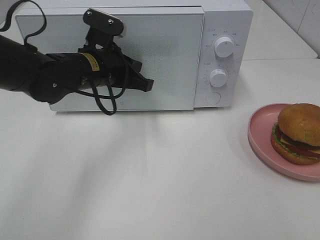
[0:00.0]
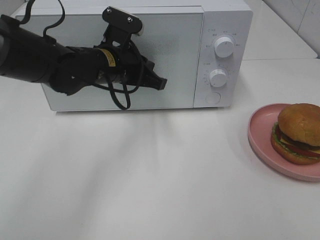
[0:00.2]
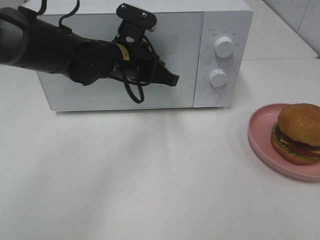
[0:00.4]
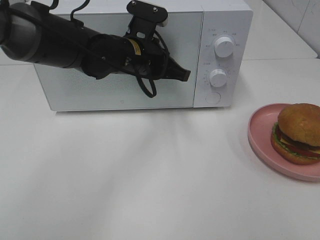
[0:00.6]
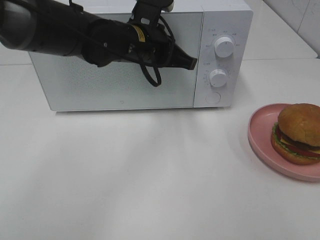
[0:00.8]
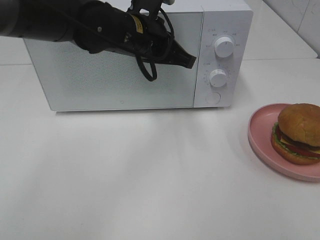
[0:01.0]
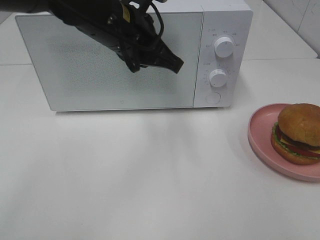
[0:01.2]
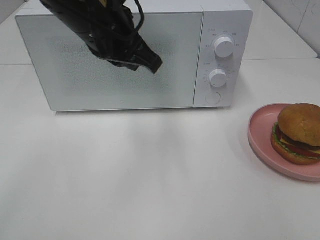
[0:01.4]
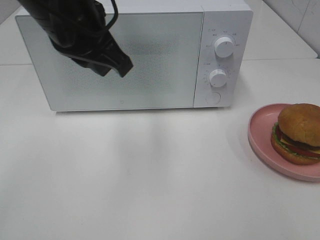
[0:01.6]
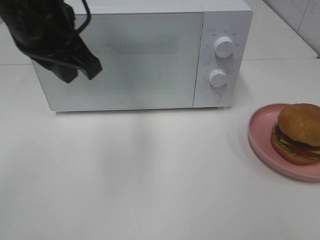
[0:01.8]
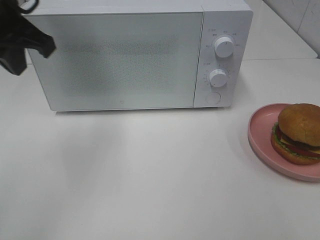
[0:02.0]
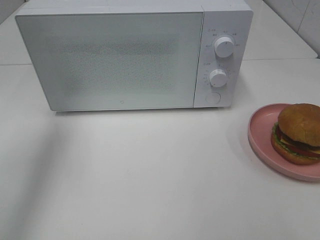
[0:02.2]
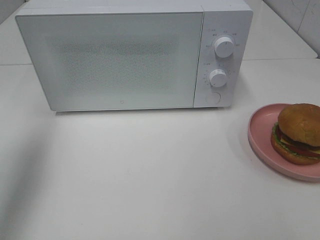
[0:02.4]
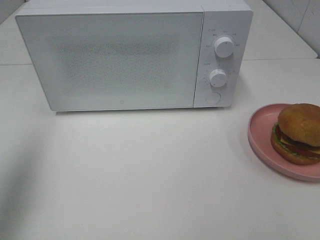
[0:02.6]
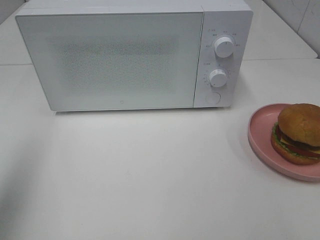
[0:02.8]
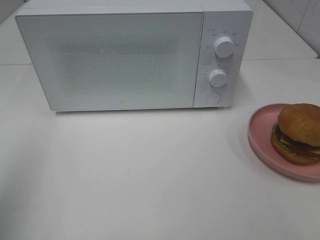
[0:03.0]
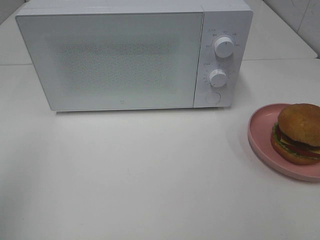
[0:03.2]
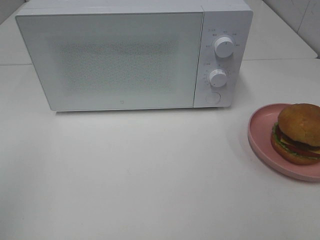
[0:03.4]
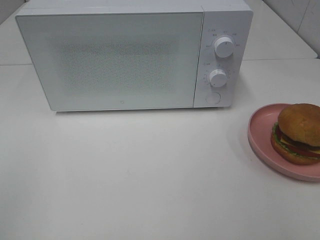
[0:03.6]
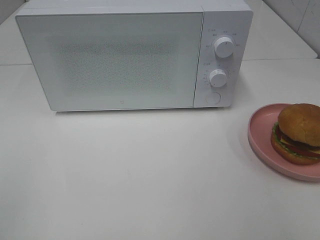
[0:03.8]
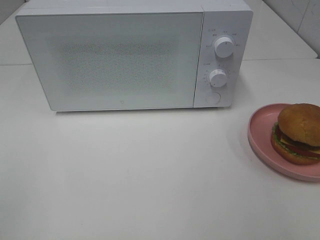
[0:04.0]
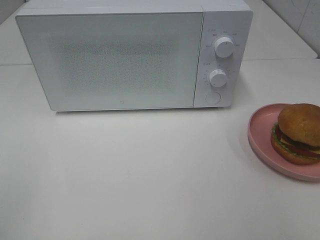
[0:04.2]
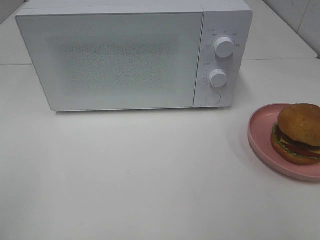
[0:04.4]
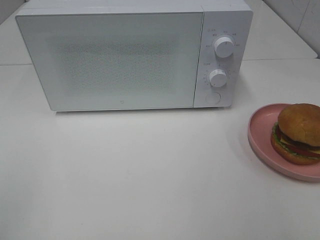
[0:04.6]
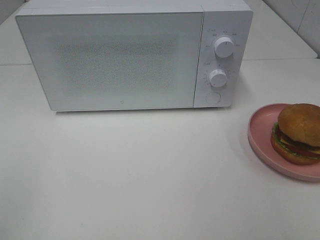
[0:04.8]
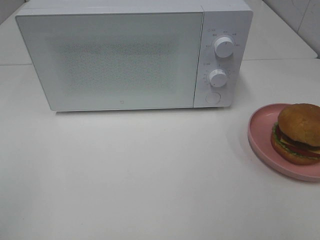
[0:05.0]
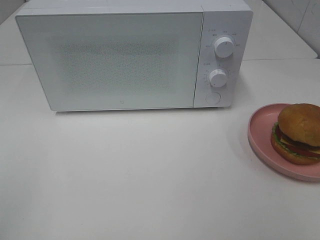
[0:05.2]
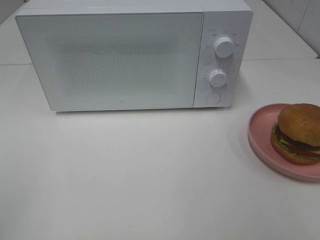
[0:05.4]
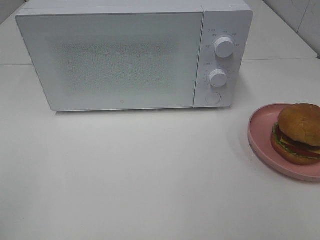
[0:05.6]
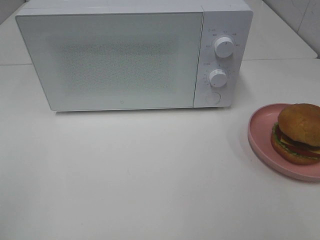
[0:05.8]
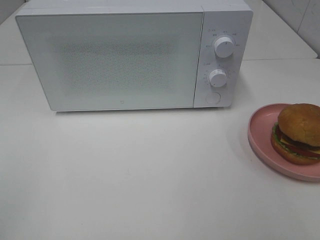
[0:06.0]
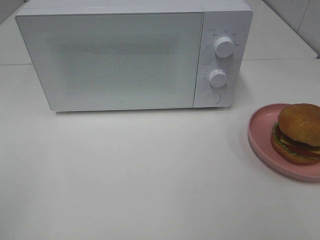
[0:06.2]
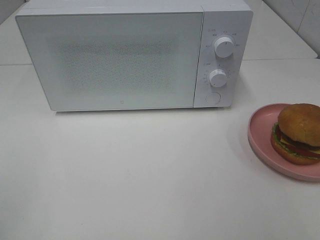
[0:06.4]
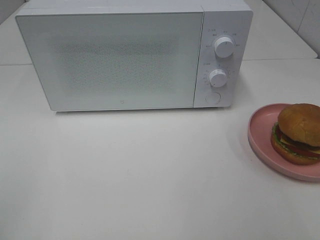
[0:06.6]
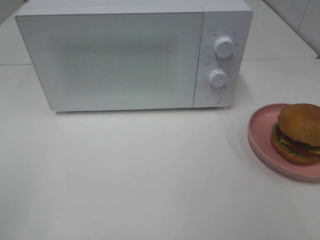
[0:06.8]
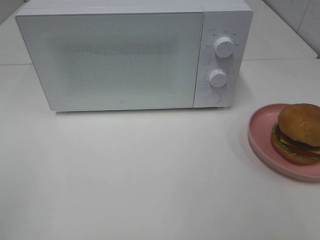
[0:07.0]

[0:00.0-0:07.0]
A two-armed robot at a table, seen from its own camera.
Task of the whole recording: Heat the burger.
0:00.0 to 0:01.4: The left gripper goes some 15 cm upward and backward.
0:01.4 to 0:02.8: The left gripper shifts about 30 cm to the left and backward.
0:02.8 to 0:04.2: The left gripper heads backward and downward, covering about 15 cm.
0:05.6 to 0:07.0: Neither gripper changes place.

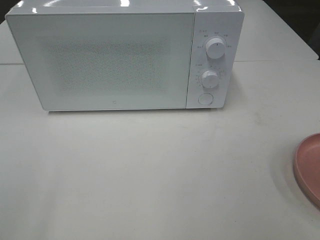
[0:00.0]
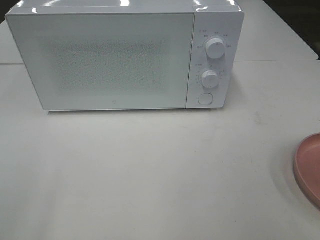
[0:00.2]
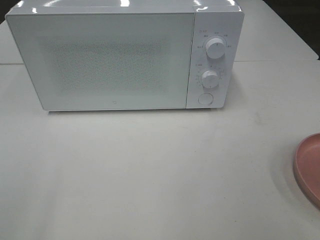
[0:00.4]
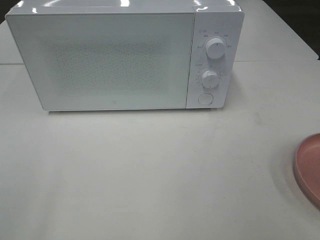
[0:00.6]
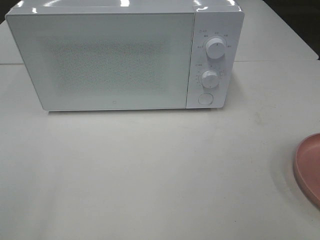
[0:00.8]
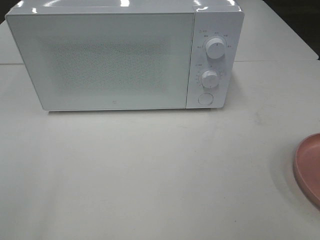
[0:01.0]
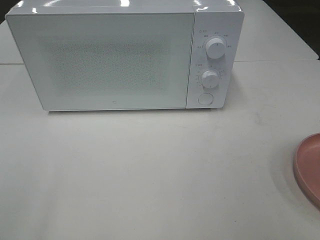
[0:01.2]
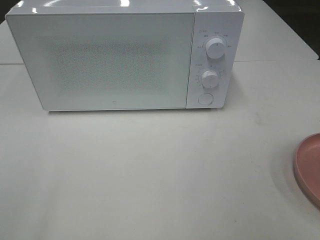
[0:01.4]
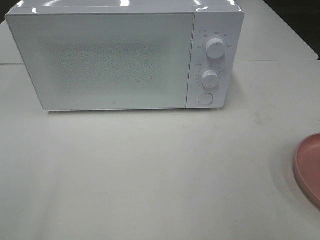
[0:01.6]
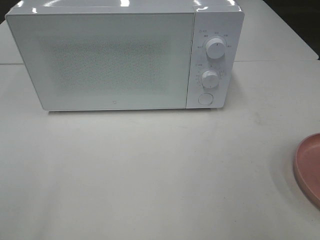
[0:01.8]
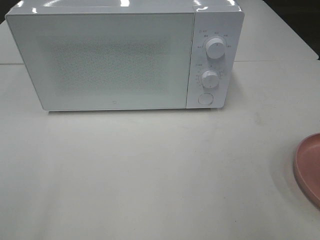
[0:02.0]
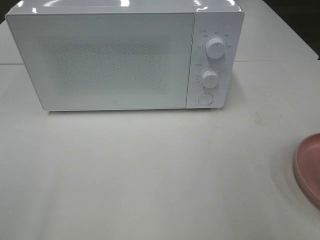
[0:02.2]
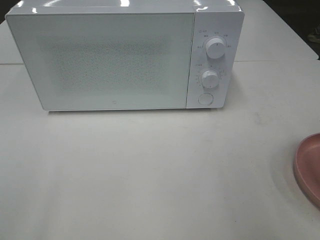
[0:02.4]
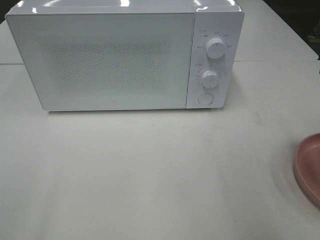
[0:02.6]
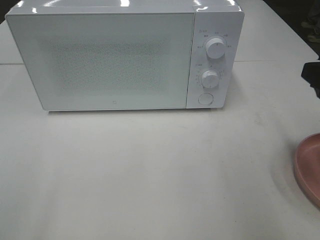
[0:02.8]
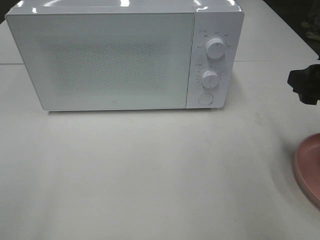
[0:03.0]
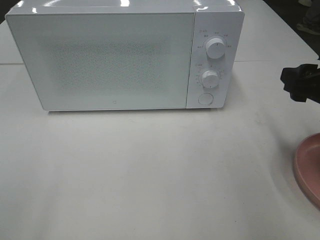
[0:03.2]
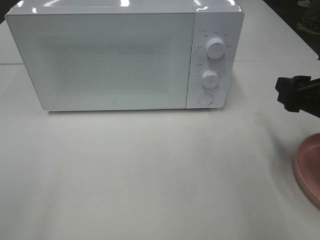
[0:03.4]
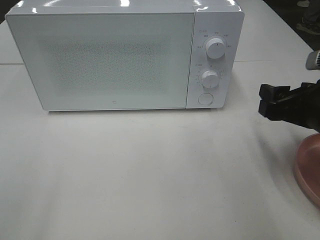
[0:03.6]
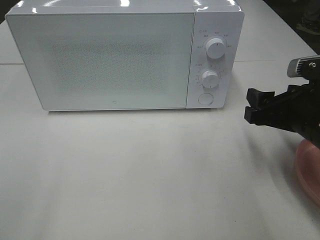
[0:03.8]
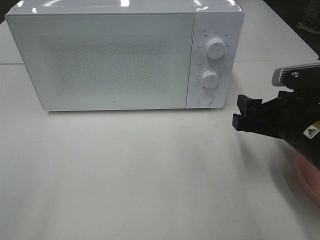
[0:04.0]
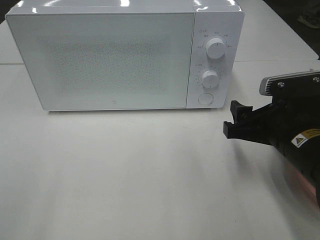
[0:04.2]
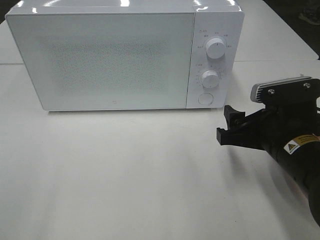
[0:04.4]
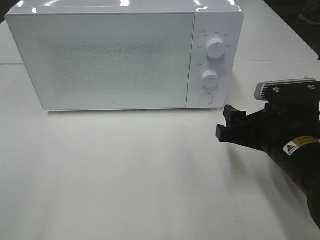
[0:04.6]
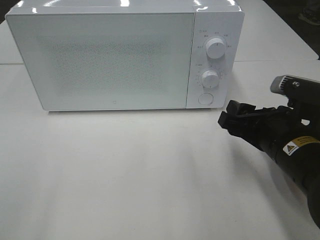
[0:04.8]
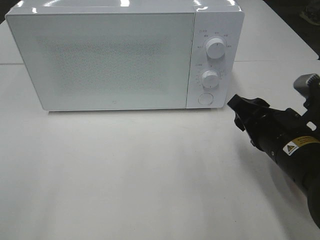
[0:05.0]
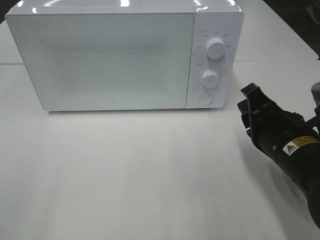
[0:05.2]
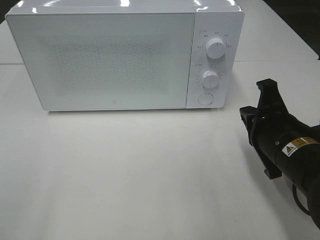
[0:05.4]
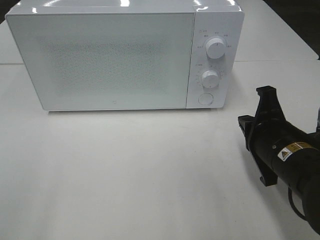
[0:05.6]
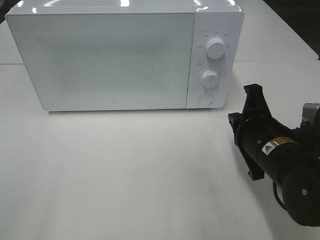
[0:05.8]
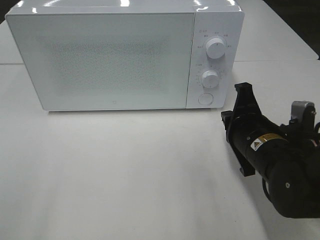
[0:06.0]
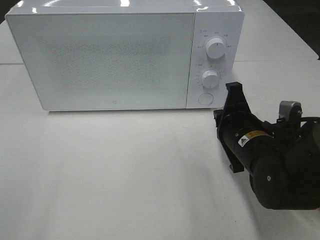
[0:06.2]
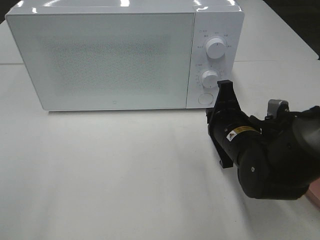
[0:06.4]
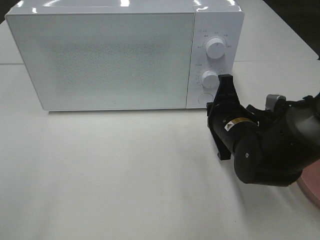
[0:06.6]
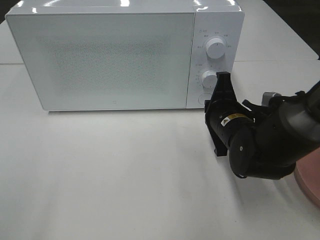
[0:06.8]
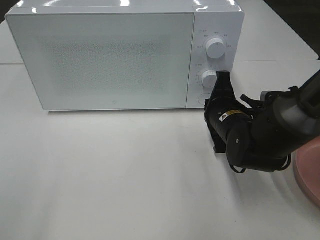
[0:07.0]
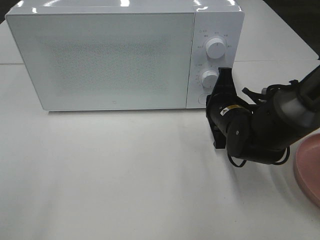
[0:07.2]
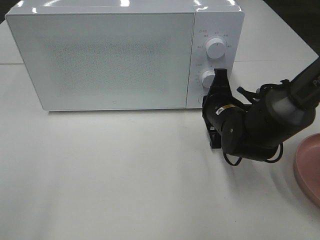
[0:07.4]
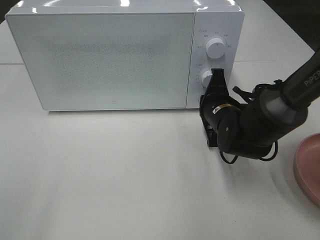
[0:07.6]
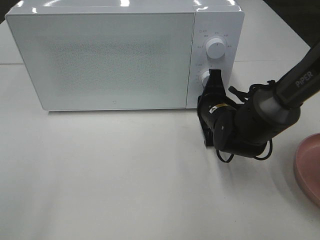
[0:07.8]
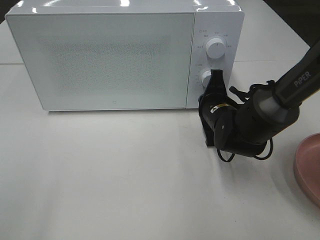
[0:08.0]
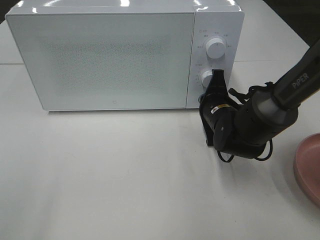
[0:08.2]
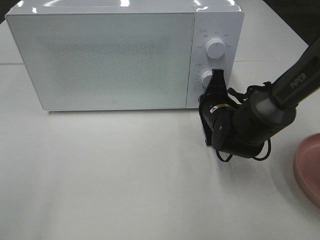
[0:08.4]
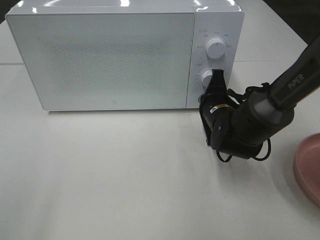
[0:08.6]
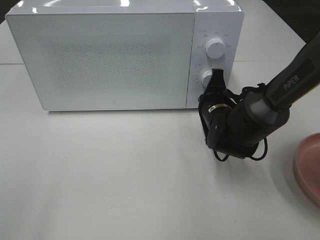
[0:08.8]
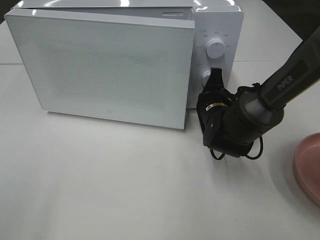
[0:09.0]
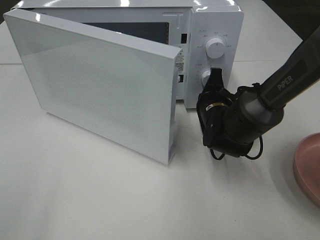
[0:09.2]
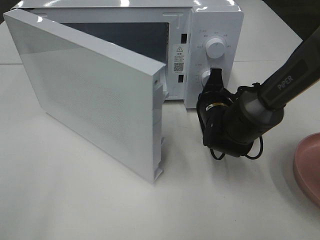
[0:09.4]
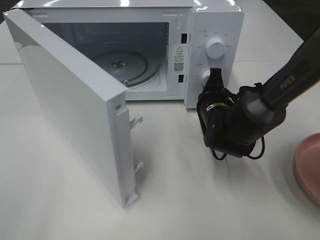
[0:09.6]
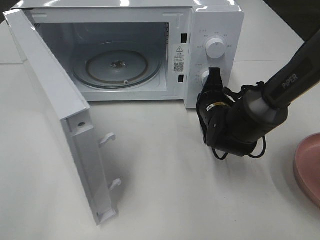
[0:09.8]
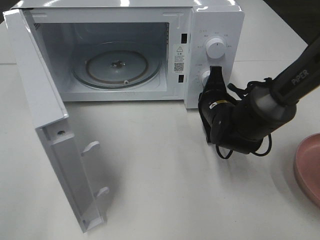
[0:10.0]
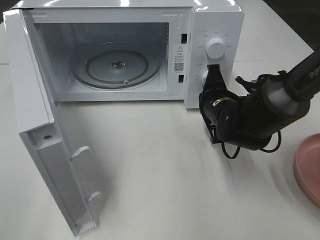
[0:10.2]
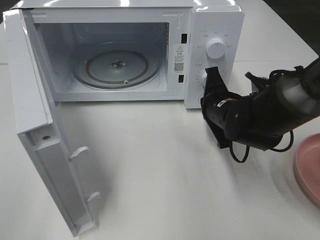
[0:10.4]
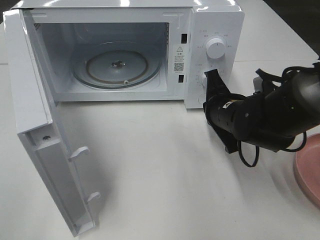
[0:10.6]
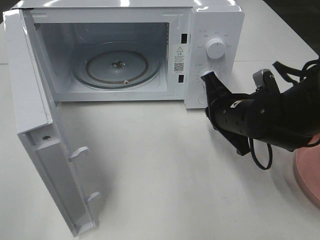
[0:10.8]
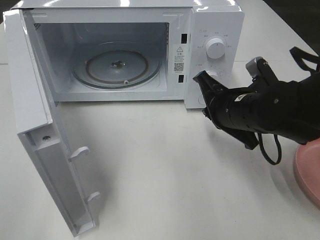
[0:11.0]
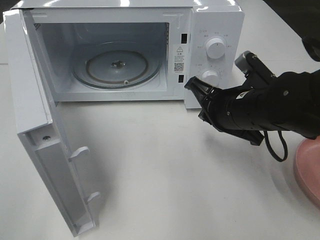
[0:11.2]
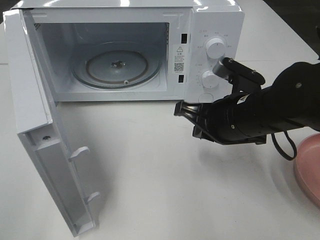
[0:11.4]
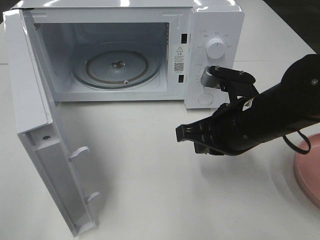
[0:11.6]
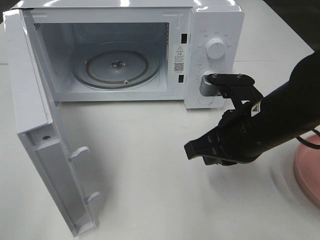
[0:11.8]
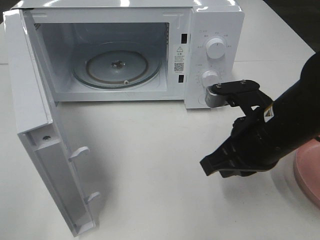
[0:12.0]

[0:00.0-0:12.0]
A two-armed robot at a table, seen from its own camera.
Task of the whole recording: Heat the burger.
Step, 0:00.0 to 0:10.2: Right hand: press the switch.
0:01.6 to 0:03.0: The right gripper heads forward and downward, covering approximately 20 cm.
0:03.0 to 0:04.4: The right gripper moves to the left and downward, approximately 10 cm.
0:04.4 to 0:06.0: The right gripper closes.
0:06.0 to 0:07.6: The right gripper travels forward by roughly 10 cm.
0:07.6 to 0:09.0: The grippers stay close to where they were, moving slightly.
0:10.4 to 0:12.0: The right gripper travels backward and upward by approximately 15 cm.

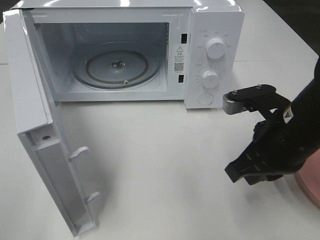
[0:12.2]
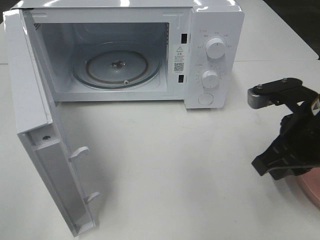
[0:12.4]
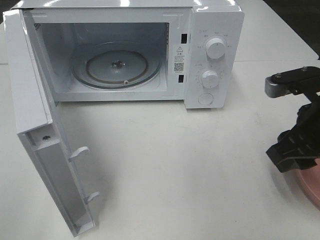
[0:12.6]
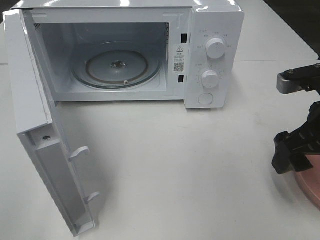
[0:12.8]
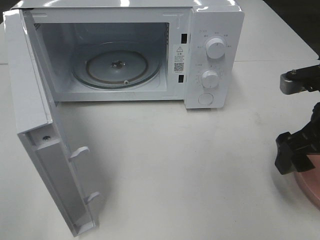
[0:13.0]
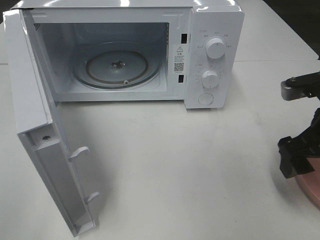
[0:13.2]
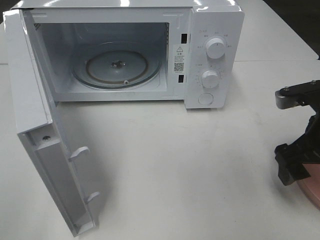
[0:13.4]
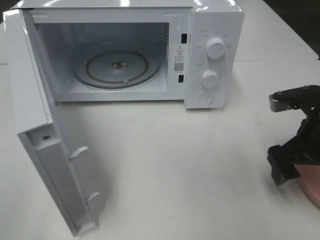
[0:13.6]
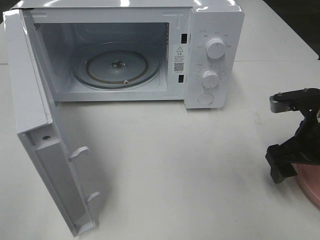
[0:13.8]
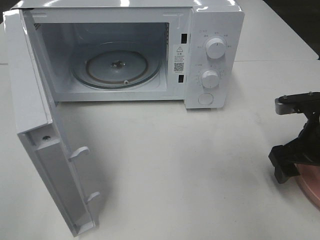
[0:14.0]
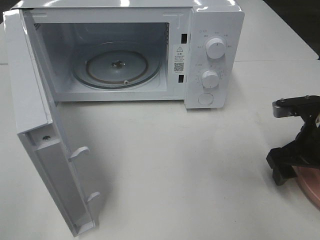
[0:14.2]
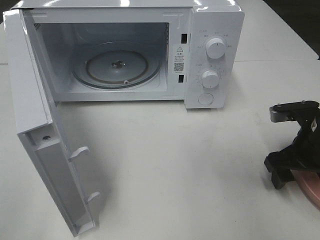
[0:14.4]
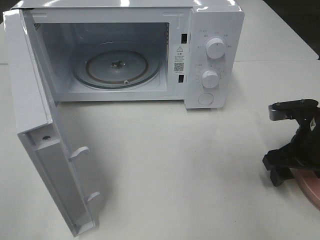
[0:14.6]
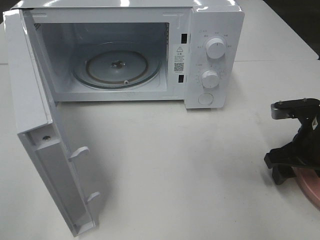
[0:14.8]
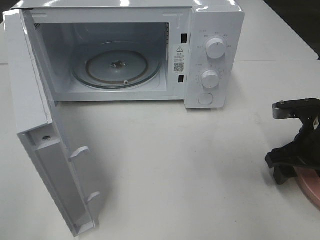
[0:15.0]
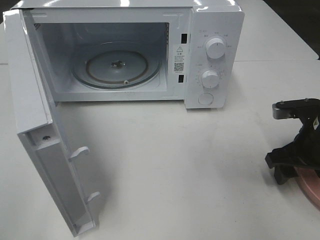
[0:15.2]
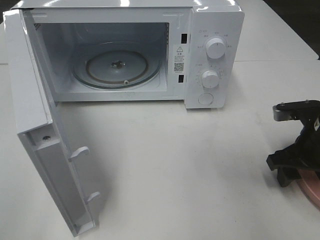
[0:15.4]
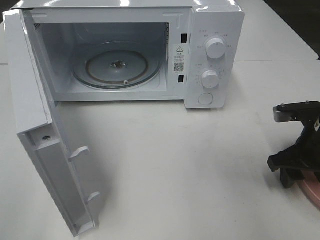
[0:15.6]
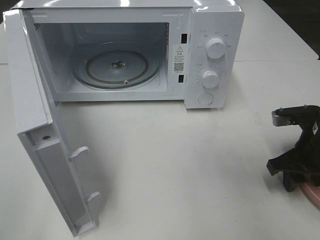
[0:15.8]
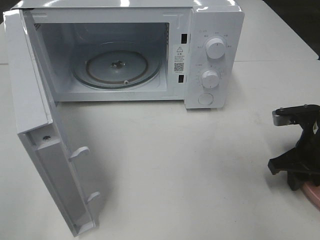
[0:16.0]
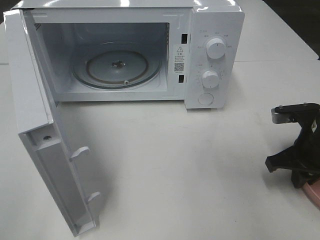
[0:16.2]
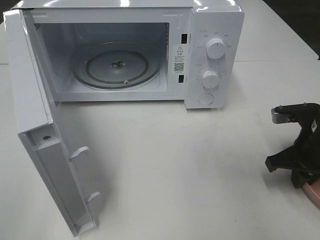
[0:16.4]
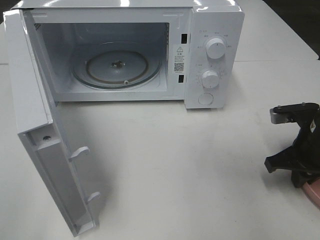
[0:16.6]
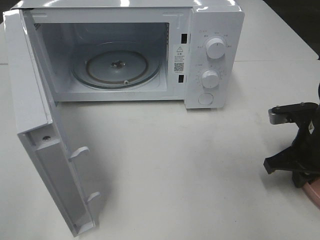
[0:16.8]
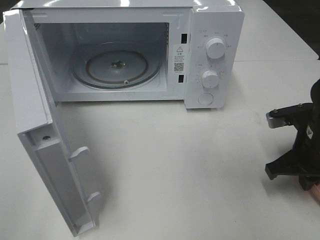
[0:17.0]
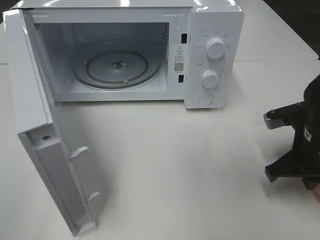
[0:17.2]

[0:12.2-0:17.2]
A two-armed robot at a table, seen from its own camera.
Task of the whole recording: Heat the burger.
Step, 0:12.2 to 0:17.0: Right hand: grab the plate with the hamburger.
0:12.2 to 0:13.8: The right gripper goes about 5 cm to the right, and opens up.
0:13.8 to 0:15.6: The grippers make only small movements.
0:15.6 to 0:17.2: The right gripper closes its fingers.
